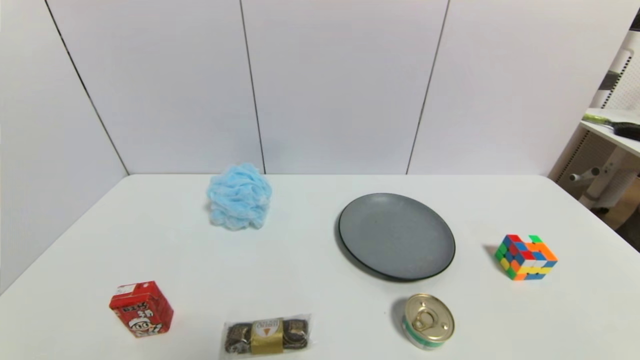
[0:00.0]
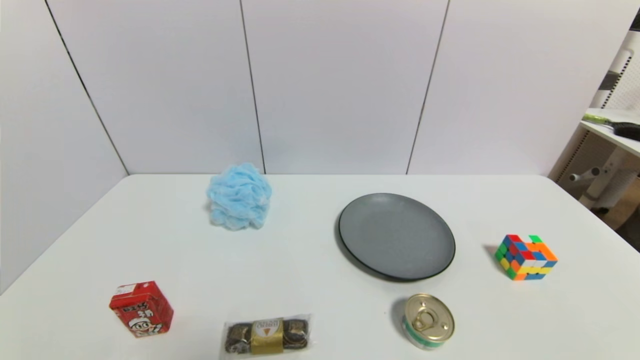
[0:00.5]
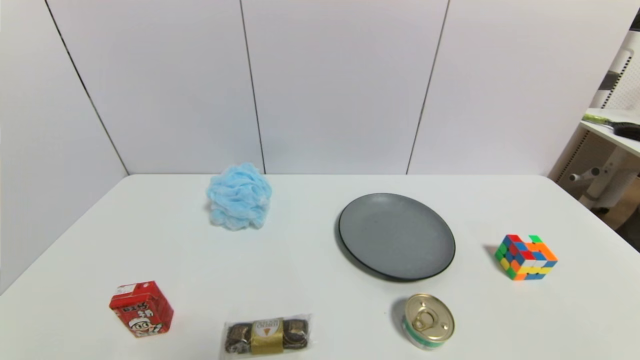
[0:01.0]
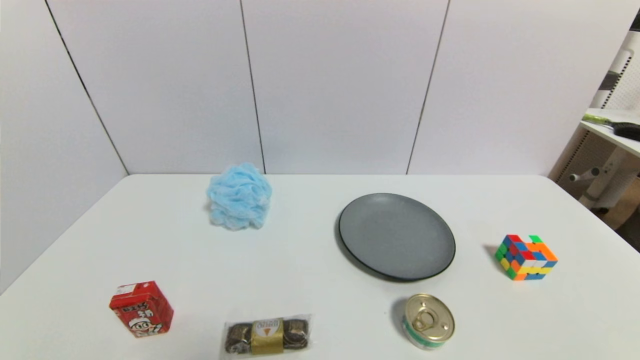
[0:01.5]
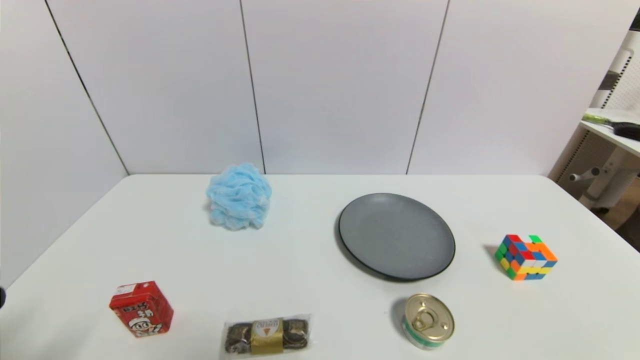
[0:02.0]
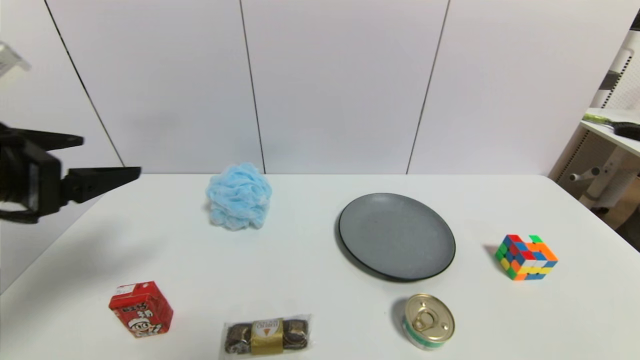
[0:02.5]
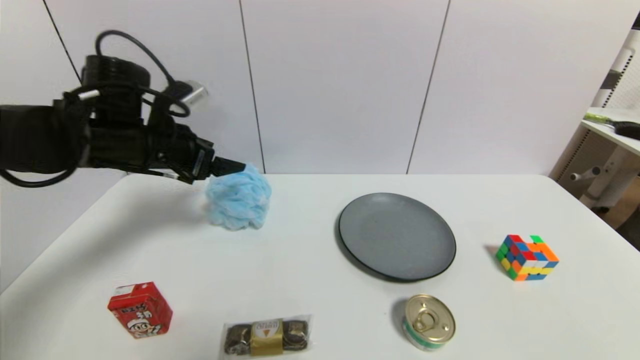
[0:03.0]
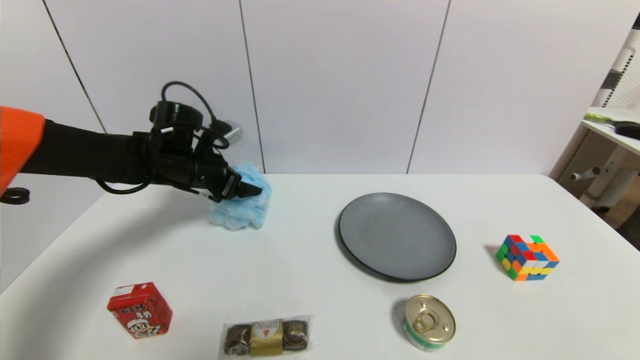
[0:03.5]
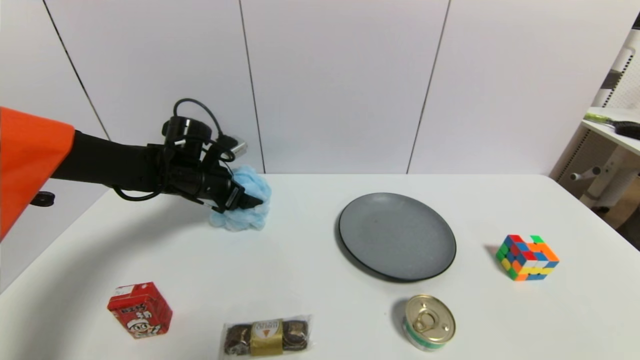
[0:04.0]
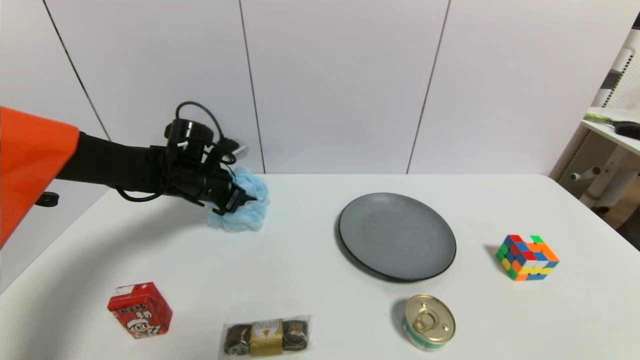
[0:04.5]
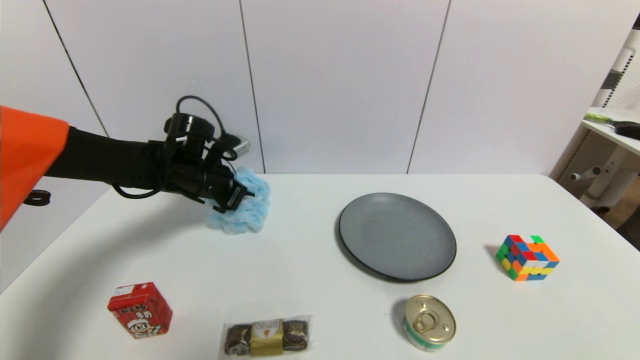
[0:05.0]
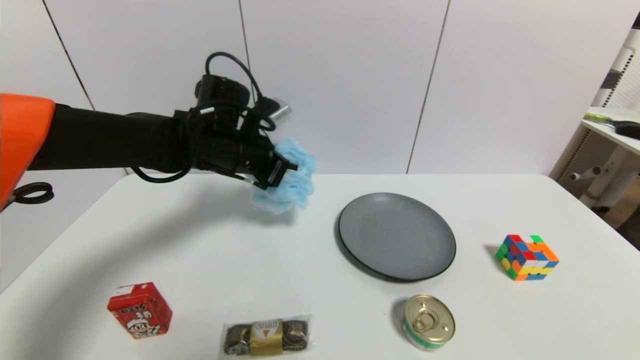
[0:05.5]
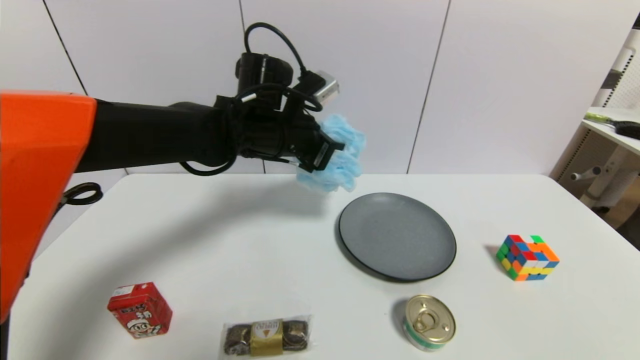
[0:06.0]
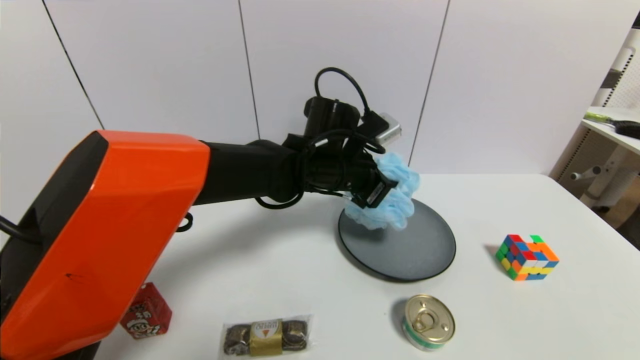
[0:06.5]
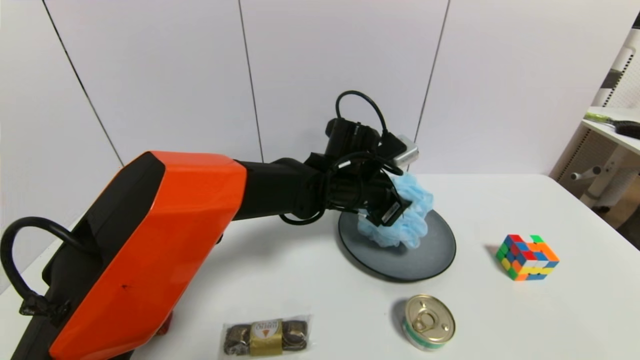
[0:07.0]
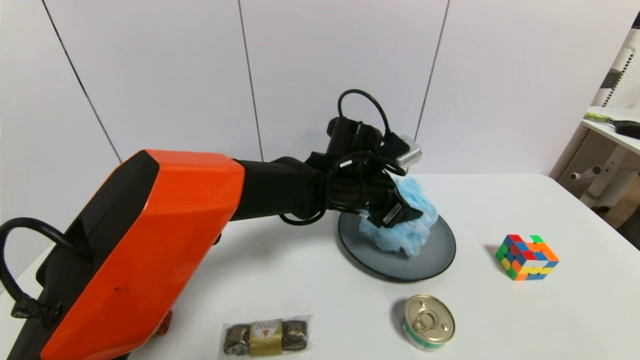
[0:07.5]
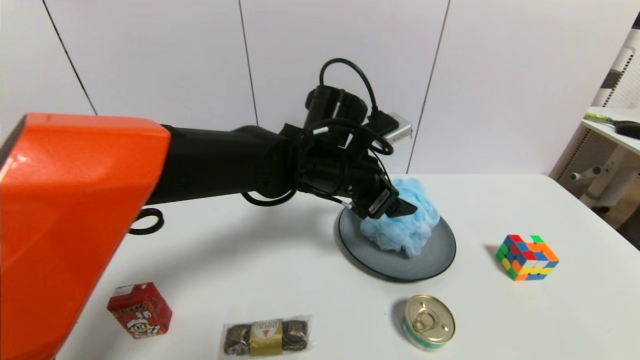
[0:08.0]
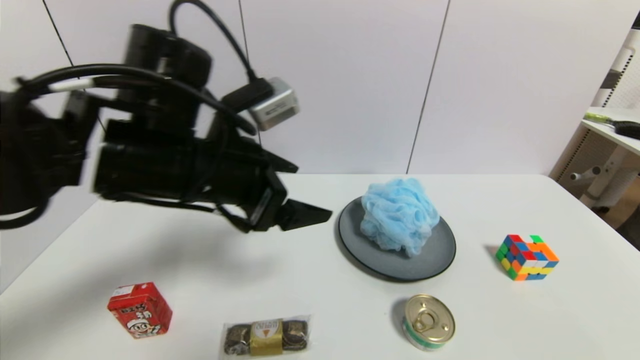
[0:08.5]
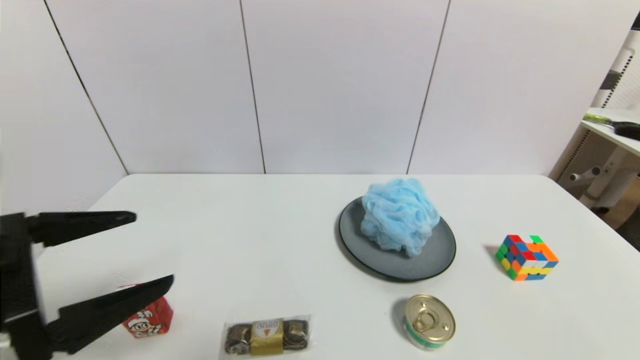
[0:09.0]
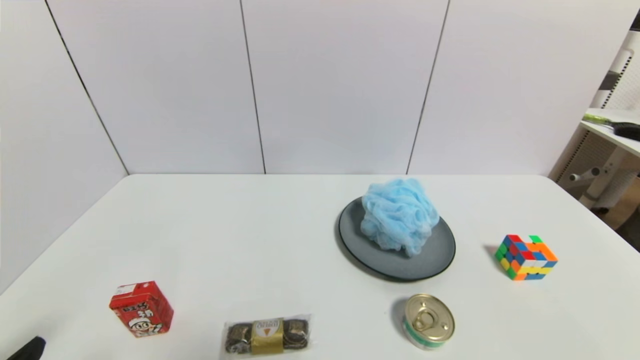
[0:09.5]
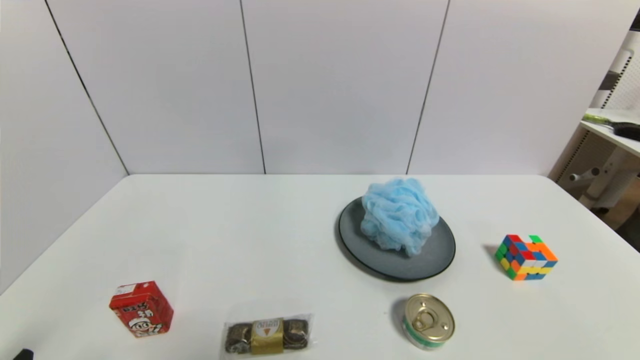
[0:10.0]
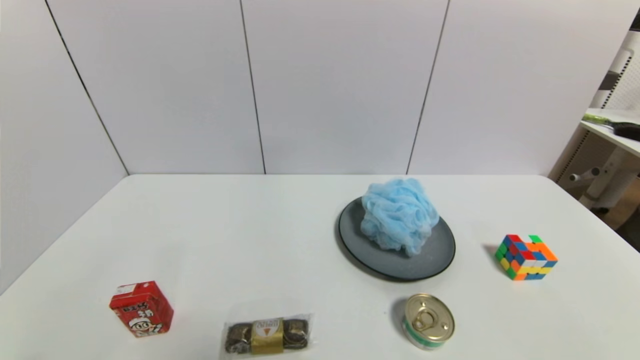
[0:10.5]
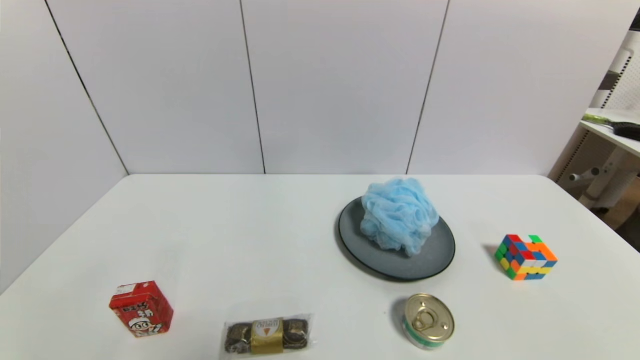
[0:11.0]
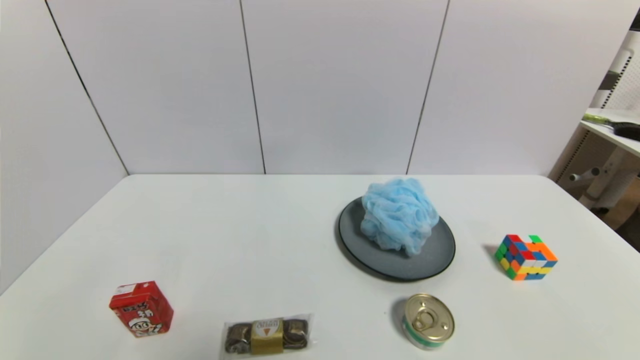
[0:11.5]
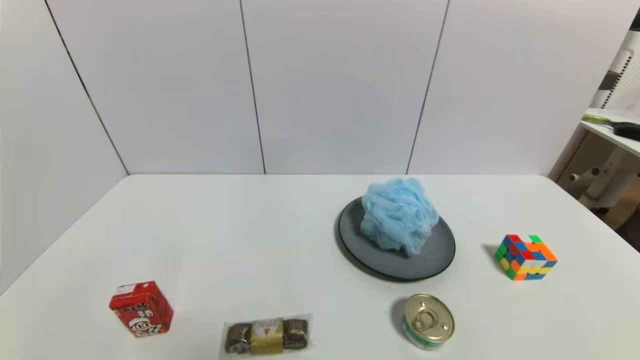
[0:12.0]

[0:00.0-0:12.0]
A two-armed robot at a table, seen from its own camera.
Task of the whole recording: use a gripper to pick the target object and place on the gray plate.
Step, 0:00.0 to 0:04.5: Grasp the shower sphere with the left gripper.
Step, 0:05.0 to 0:08.0: Place the shower sphere on the gray plate with the left gripper.
0:02.0 to 0:04.0: The left gripper goes approximately 40 cm forward.
0:04.0 to 0:06.0: The left gripper travels to the right and upward by approximately 20 cm, and closes its fingers.
0:06.0 to 0:08.0: The left gripper moves to the right, roughly 5 cm, and opens.
0:08.0 to 0:10.0: The left gripper travels backward and to the left by some 40 cm.
